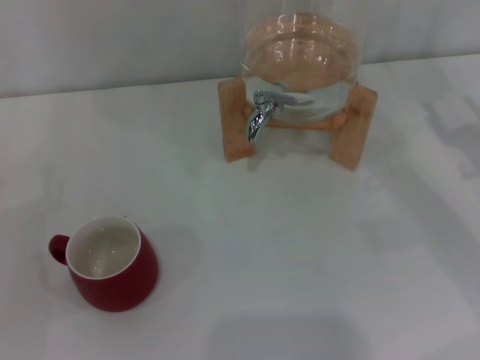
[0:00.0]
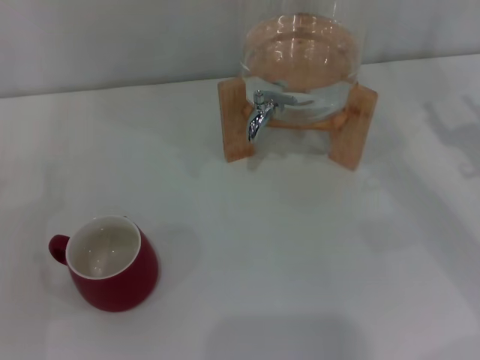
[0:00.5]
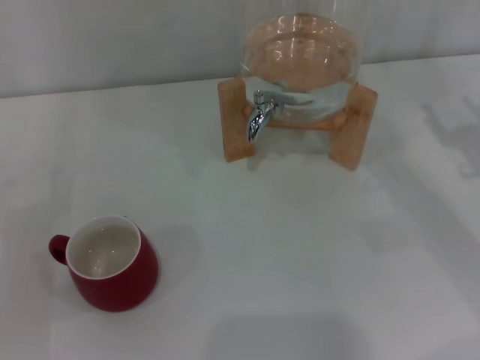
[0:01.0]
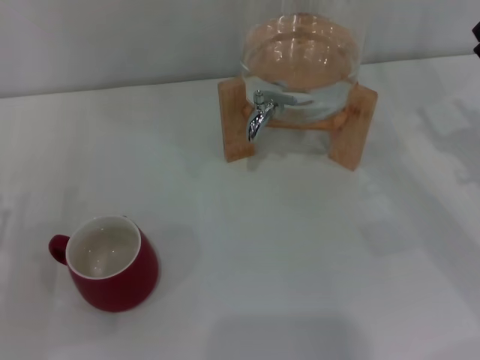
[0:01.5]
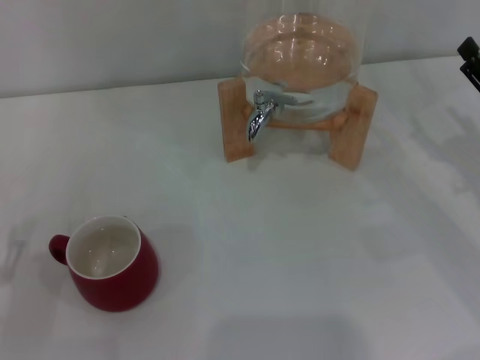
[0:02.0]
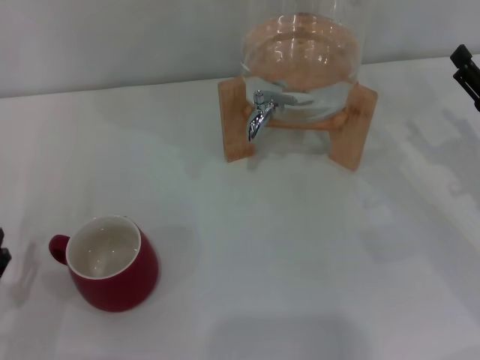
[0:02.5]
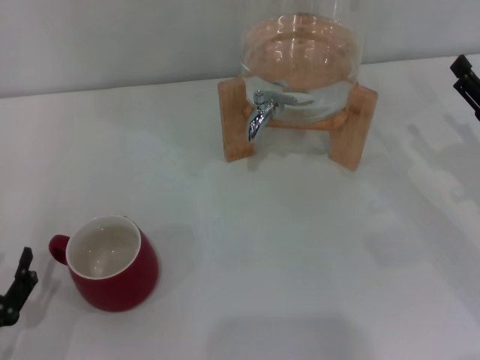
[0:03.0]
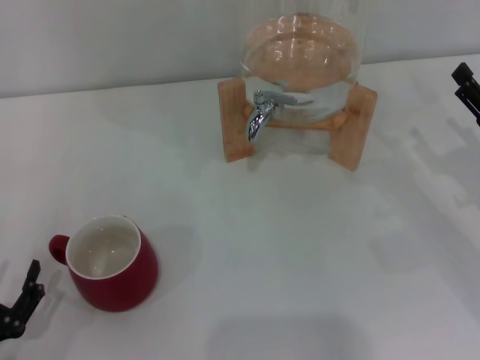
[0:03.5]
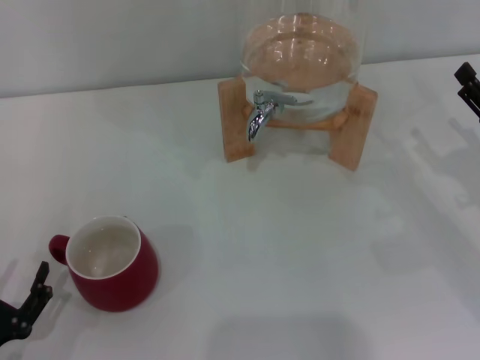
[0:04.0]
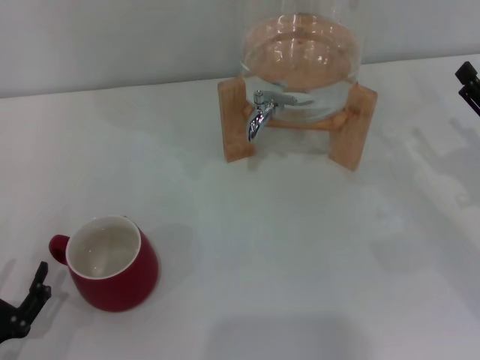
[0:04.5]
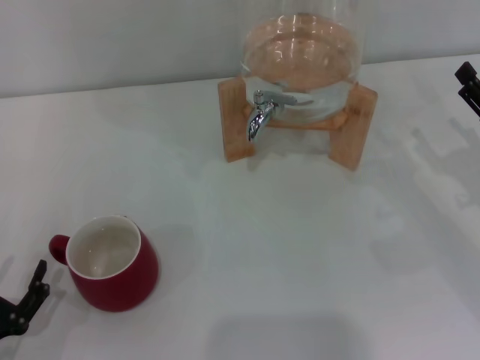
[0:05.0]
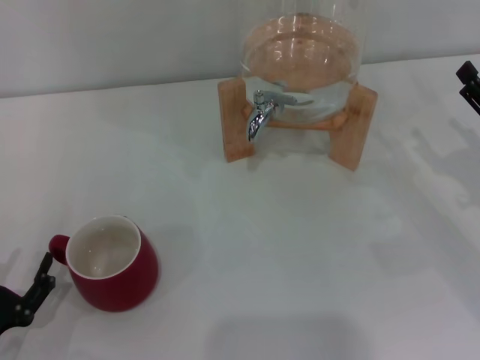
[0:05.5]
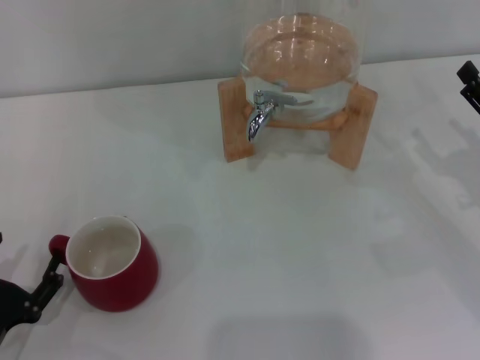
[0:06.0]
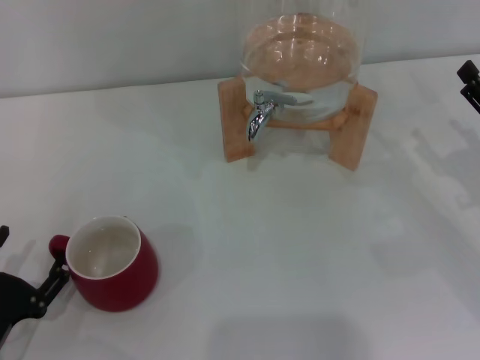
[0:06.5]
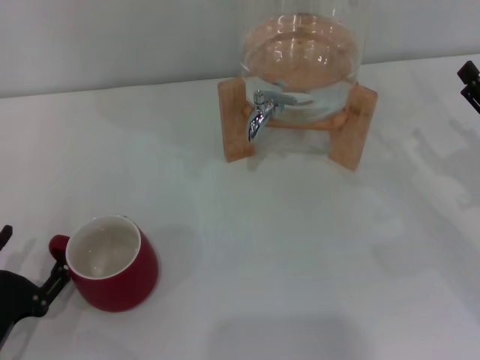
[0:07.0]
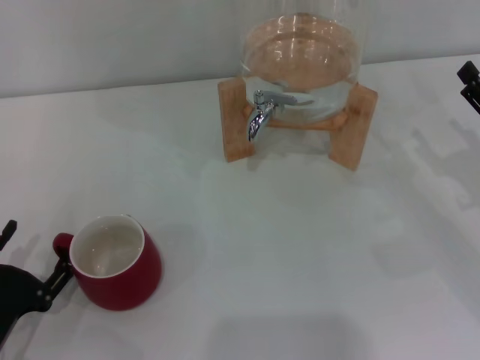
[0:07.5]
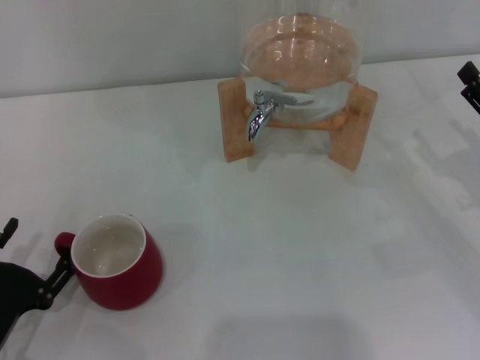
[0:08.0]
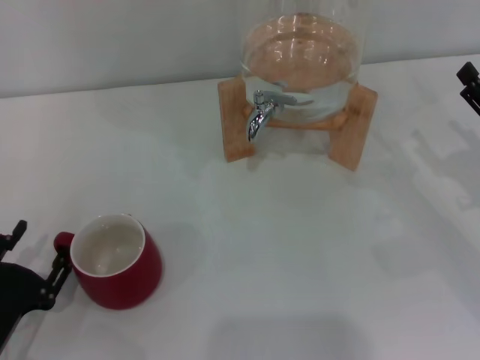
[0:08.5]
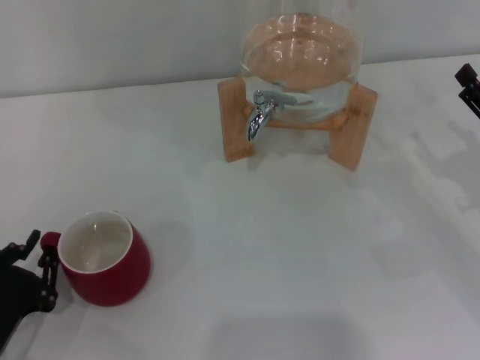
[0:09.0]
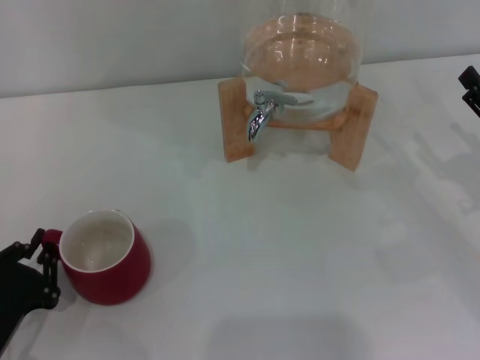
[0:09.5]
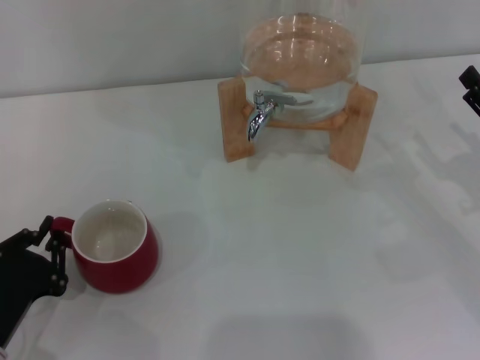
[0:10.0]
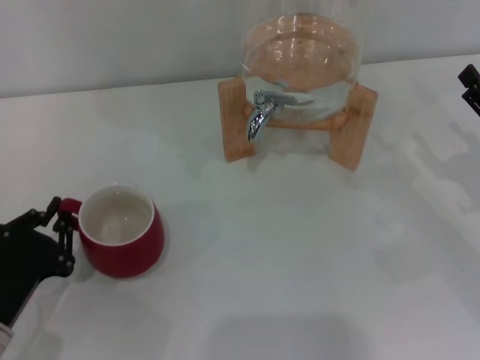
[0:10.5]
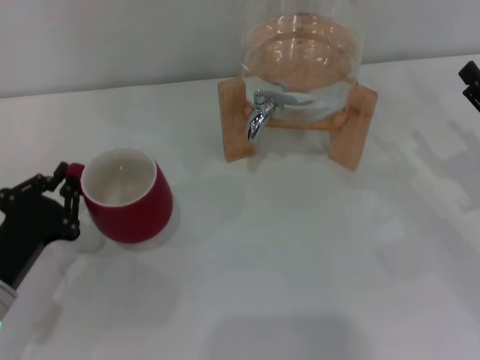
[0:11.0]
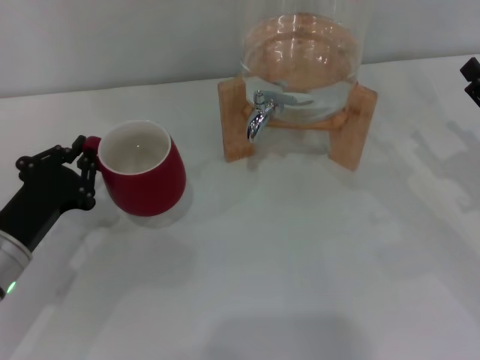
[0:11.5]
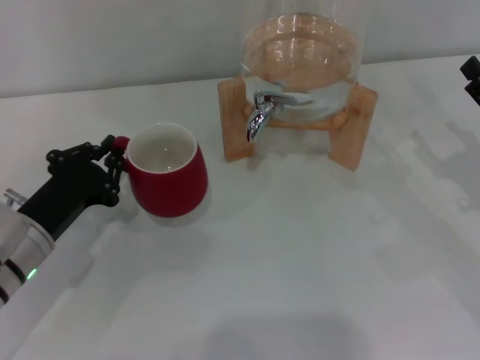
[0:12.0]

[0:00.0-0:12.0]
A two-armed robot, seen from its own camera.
Task of the whole recording: the left gripper pick up the red cup and place it horizontally under the faucet, the right gripper turn on the faucet to fill the cup, and then turn off the faucet.
2.0 to 6.0 s: The grippers make only small movements.
6.0 to 8.0 s: The grippers make only small movements.
8.0 to 10.0 s: The left gripper closes up.
10.0 to 12.0 s: The left gripper heads forward, covering about 10 cm.

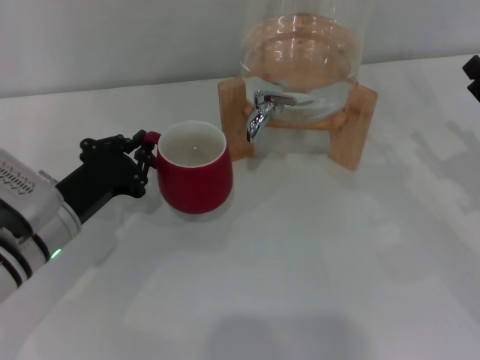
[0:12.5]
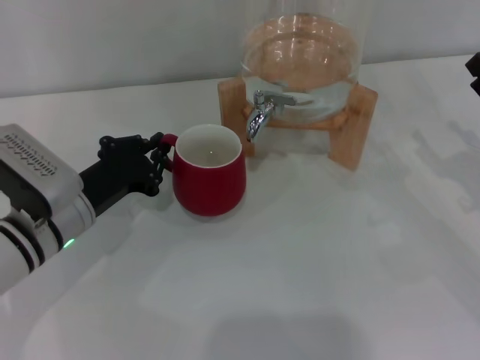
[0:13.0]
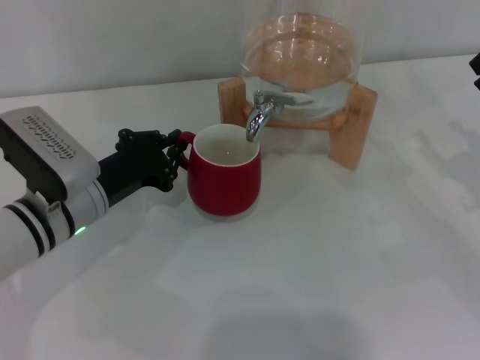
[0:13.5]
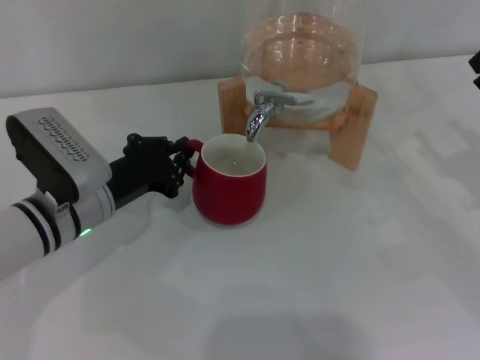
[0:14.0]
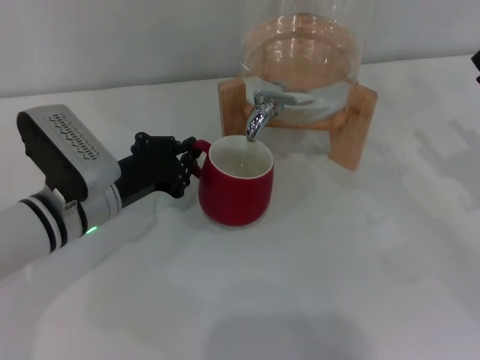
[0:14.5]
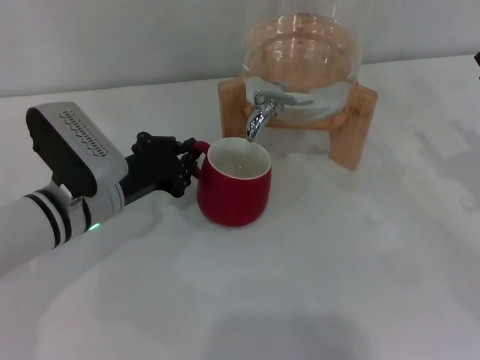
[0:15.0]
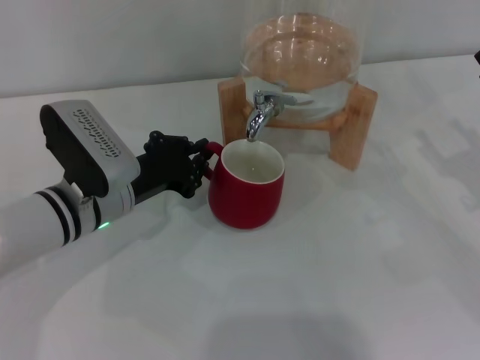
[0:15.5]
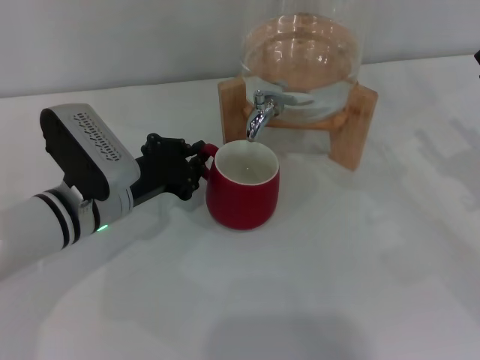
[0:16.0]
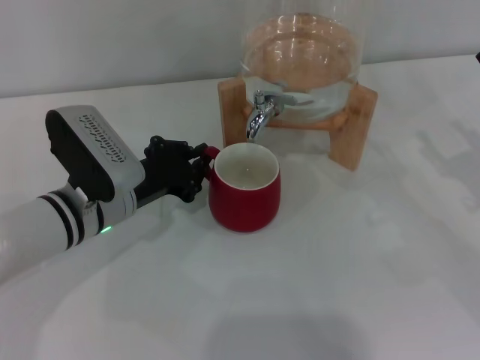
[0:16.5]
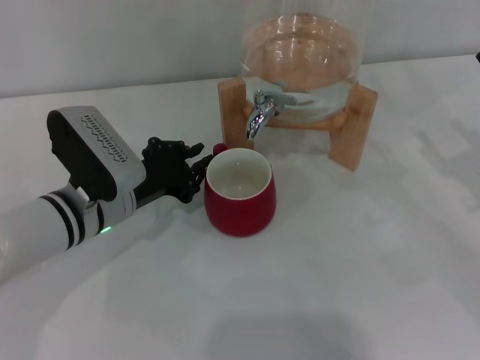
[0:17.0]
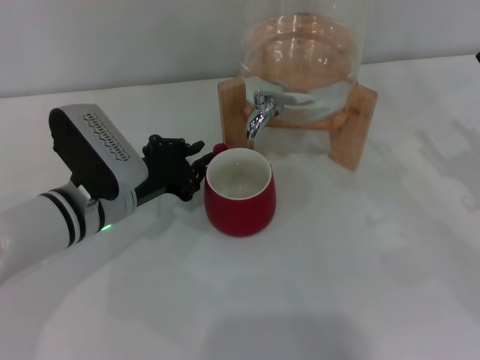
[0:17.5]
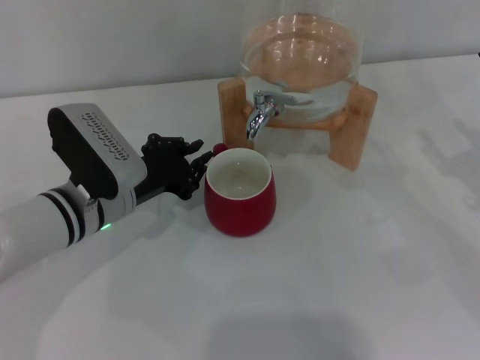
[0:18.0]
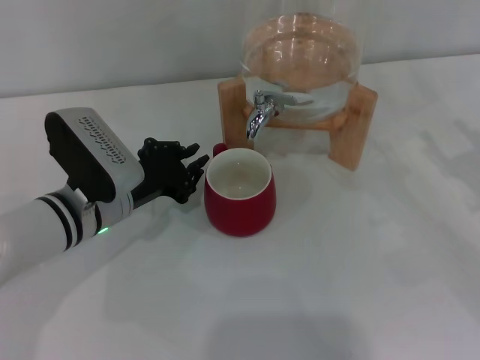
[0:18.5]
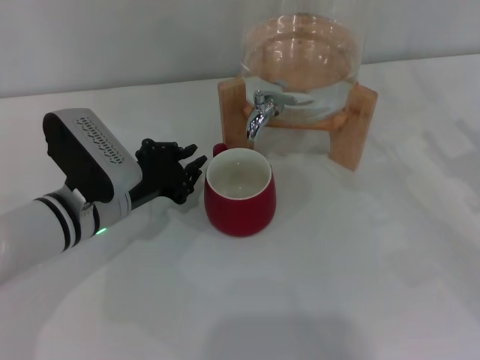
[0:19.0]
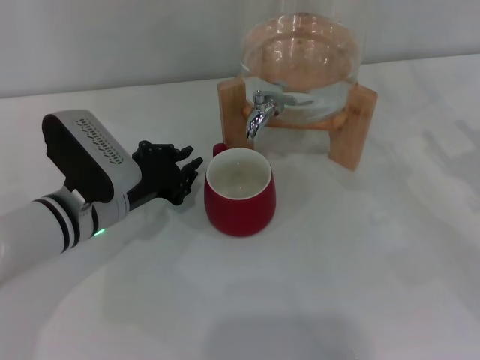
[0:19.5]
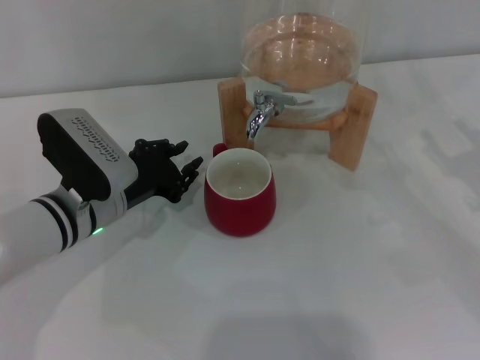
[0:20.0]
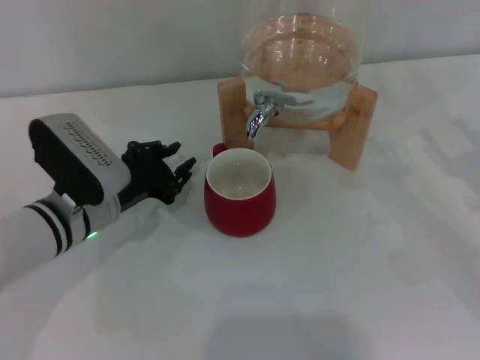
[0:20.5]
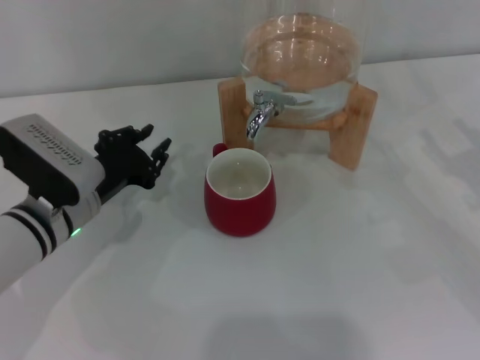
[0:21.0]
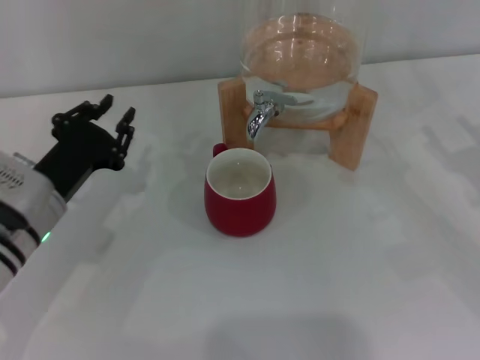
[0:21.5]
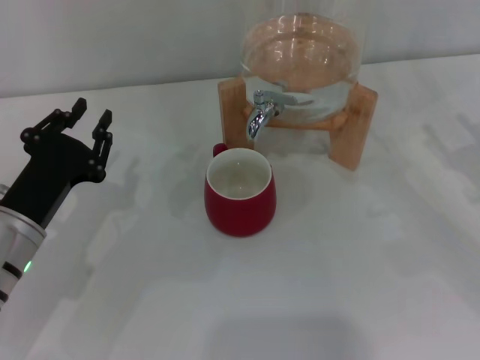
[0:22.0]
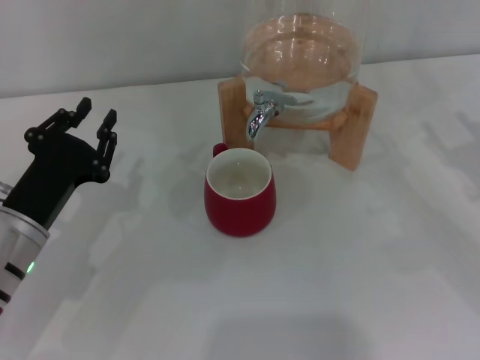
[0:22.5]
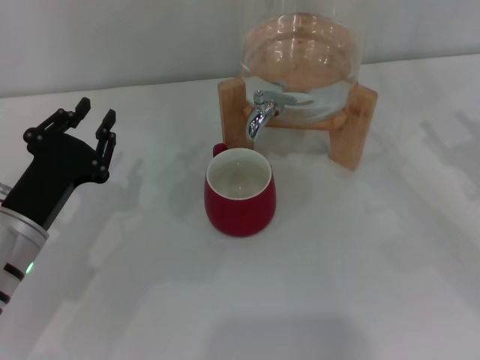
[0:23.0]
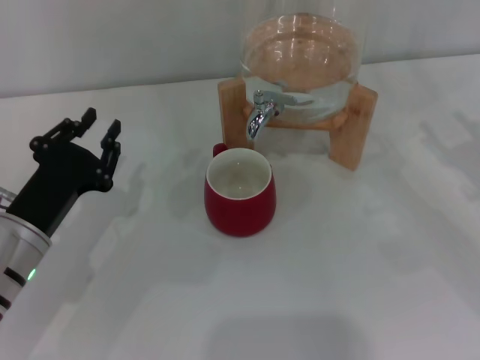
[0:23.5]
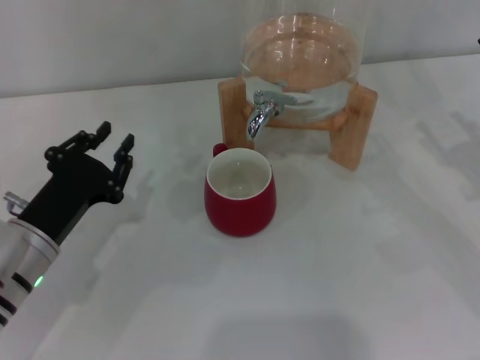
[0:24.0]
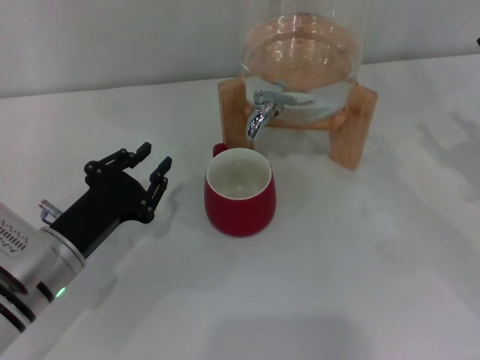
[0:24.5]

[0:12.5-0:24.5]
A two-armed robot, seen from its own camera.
Task of the whole recording: the left gripper pick up the red cup and place it horizontally under the faucet, the right gripper turn on the faucet to fill the cup, and then turn off the faucet.
12.5 to 14.5 s: The grippers move only a little.
14.5 to 16.5 s: The grippers move only a little.
16.5 to 18.5 s: Both grippers stay put.
18.5 to 20.5 s: The two grippers keep their place.
20.5 to 22.5 s: The left gripper shifts about 10 cm backward and to the left.
22.5 to 24.5 s: The grippers stay close to where they were, moving slightly.

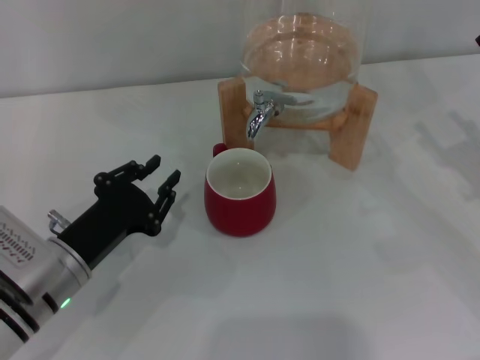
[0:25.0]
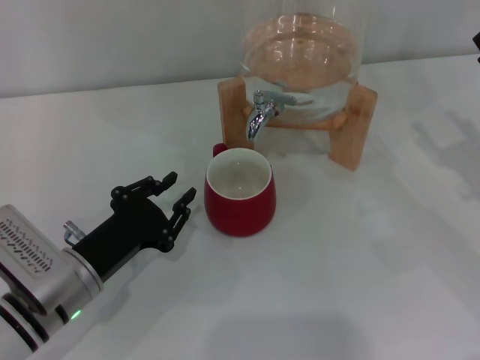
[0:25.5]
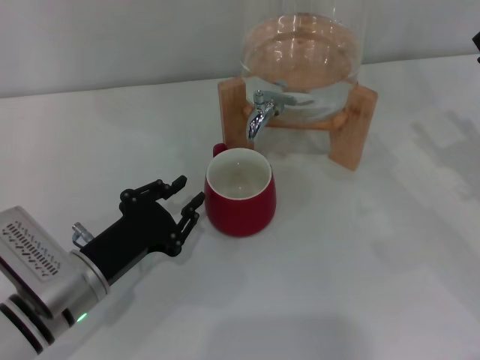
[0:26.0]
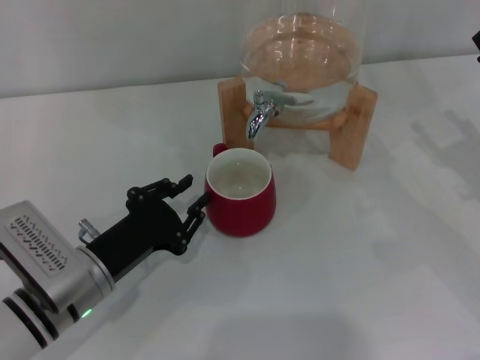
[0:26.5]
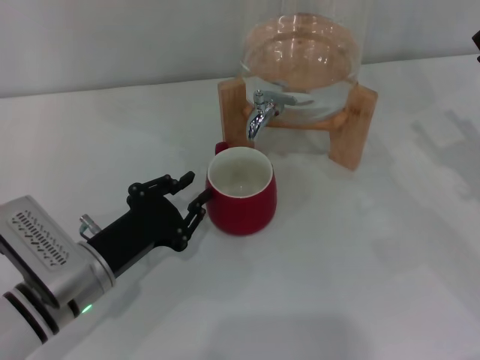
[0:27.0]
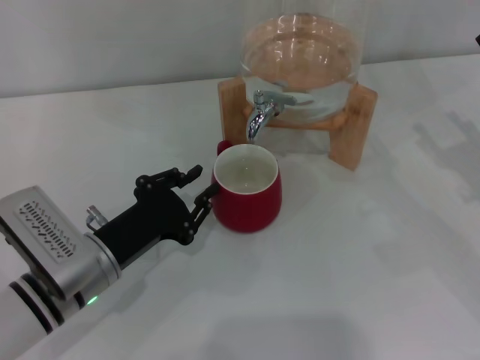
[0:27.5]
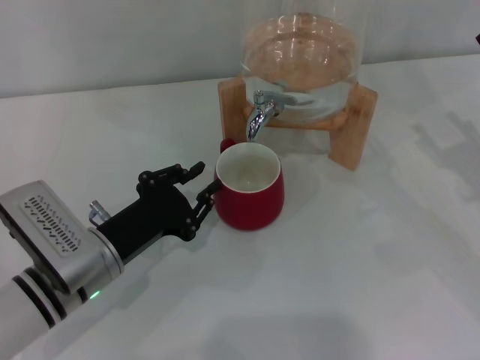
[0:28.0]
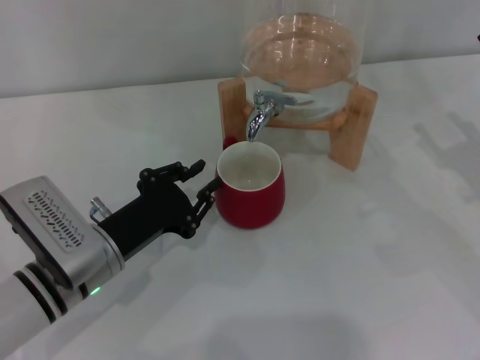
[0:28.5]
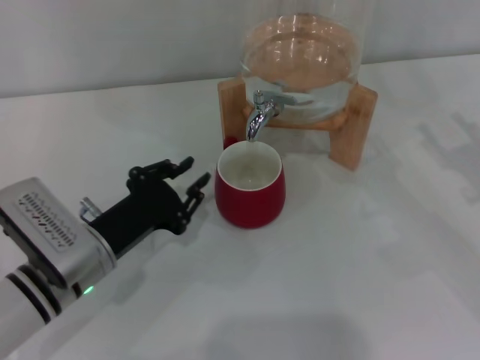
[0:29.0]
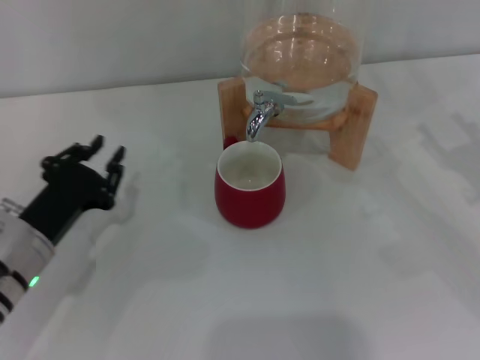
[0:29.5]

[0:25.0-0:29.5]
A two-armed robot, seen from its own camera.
Task of the whole recording: the left gripper pick up the red cup and place it horizontally under the faucet, the right gripper turn on the faucet to fill the cup, and then turn off the faucet.
Step, 25.0 to 28.5 s: Move the cup beneath the water dispenser nozzle with the left gripper.
25.0 to 27.0 s: There are only small adjustments of the grippers.
27.0 to 29.5 s: The left gripper ends up roughly 5 cm from where it was.
